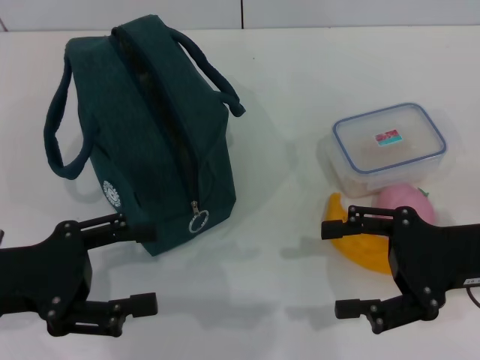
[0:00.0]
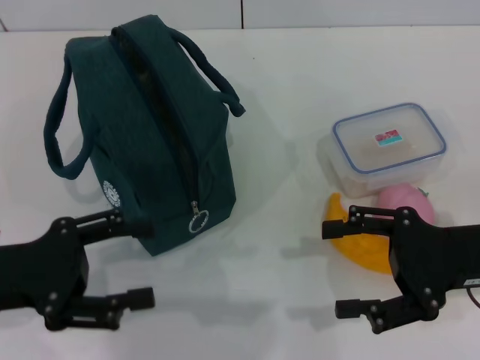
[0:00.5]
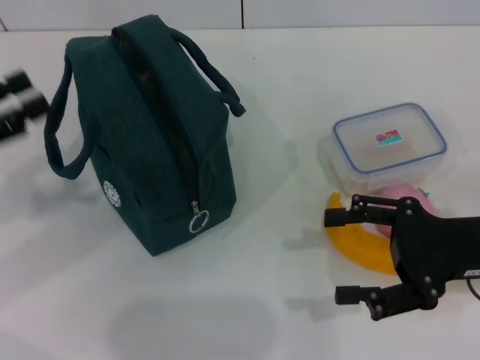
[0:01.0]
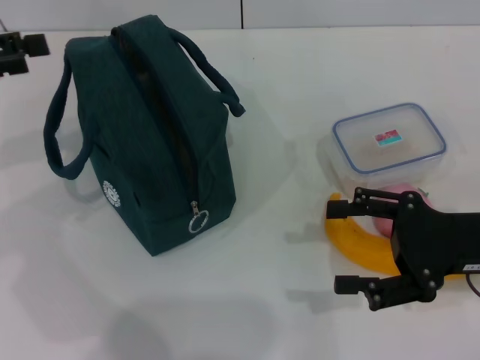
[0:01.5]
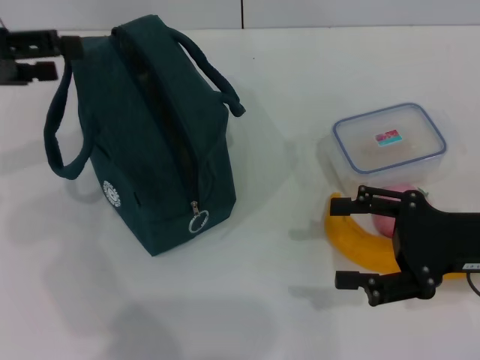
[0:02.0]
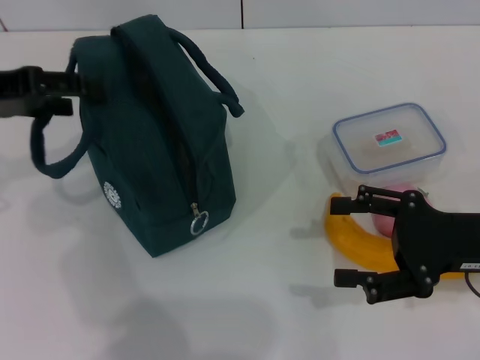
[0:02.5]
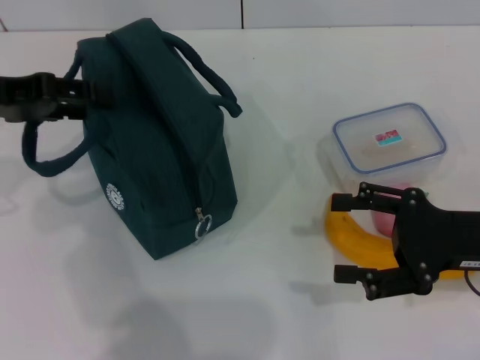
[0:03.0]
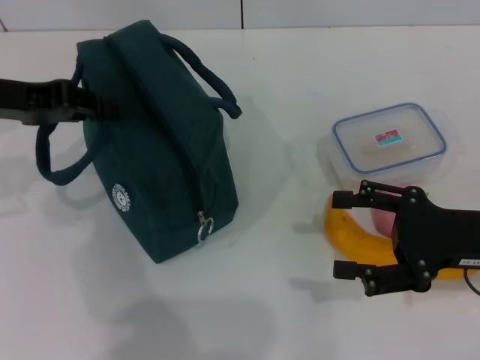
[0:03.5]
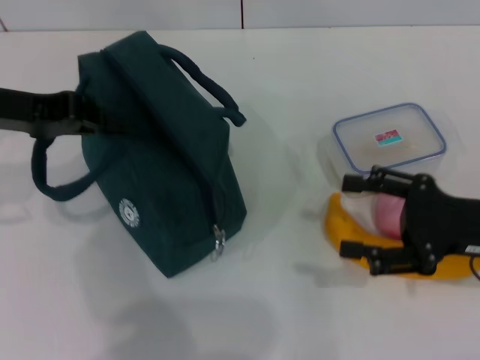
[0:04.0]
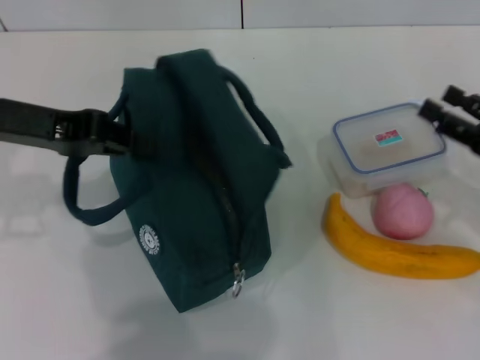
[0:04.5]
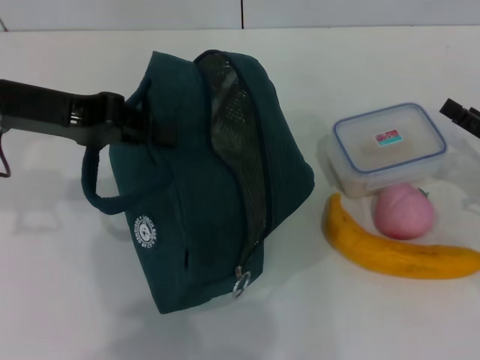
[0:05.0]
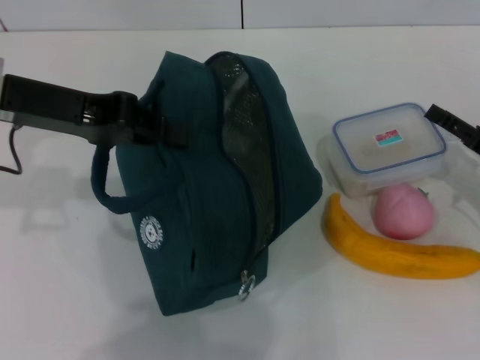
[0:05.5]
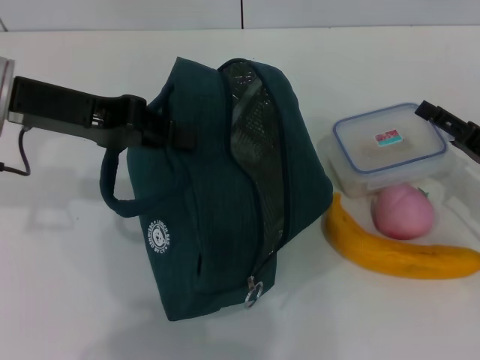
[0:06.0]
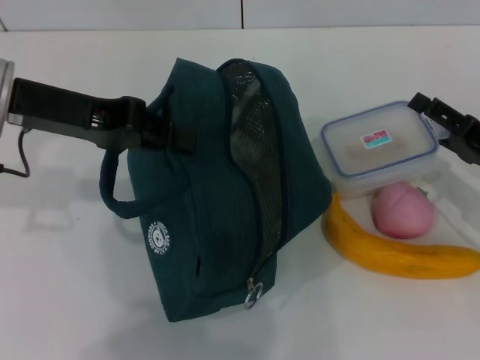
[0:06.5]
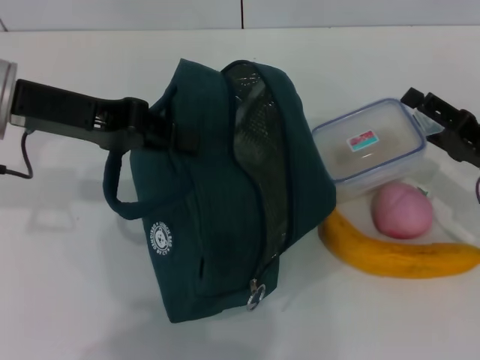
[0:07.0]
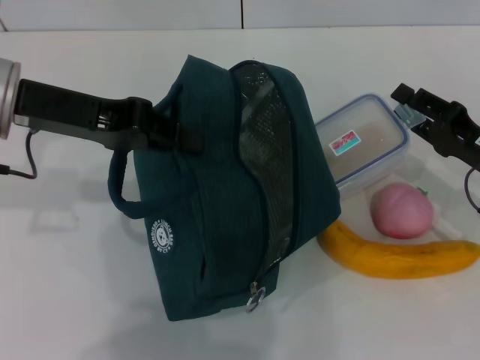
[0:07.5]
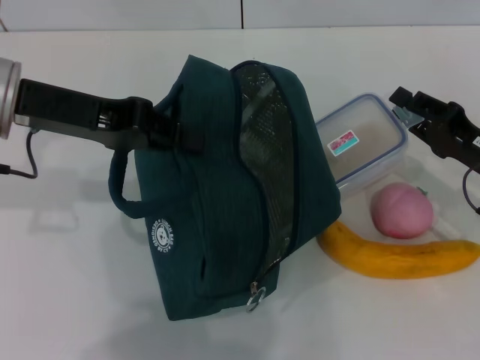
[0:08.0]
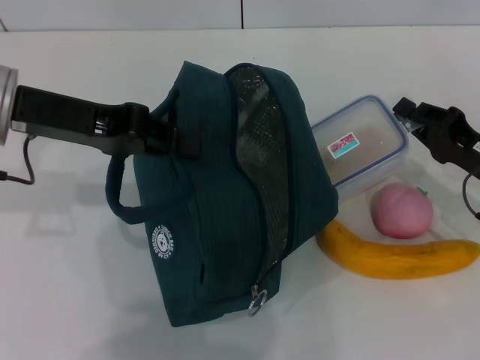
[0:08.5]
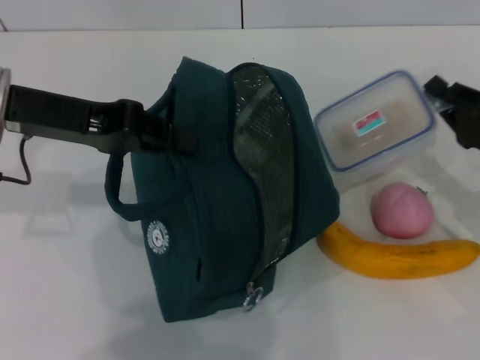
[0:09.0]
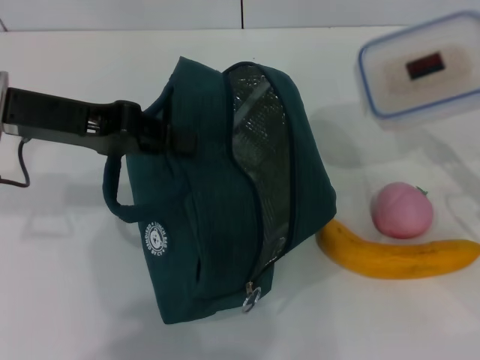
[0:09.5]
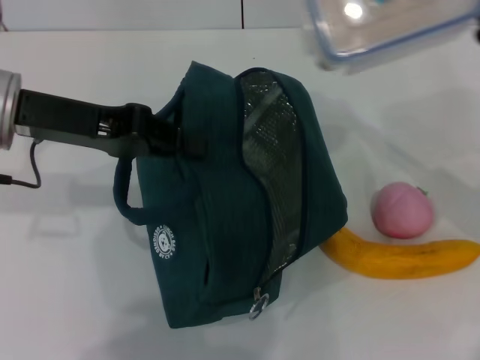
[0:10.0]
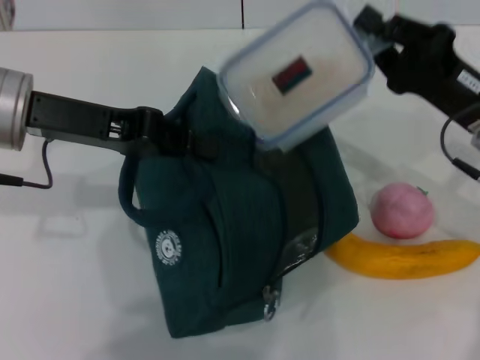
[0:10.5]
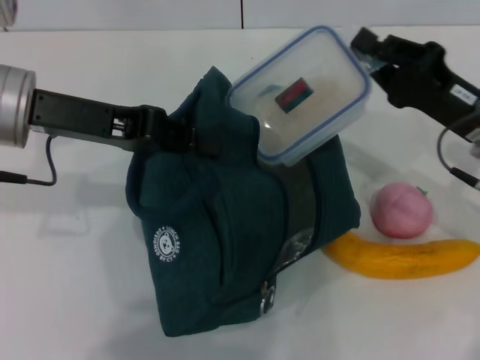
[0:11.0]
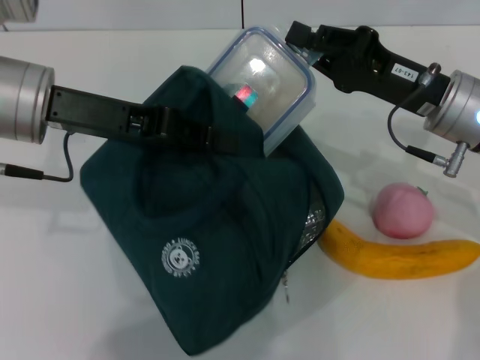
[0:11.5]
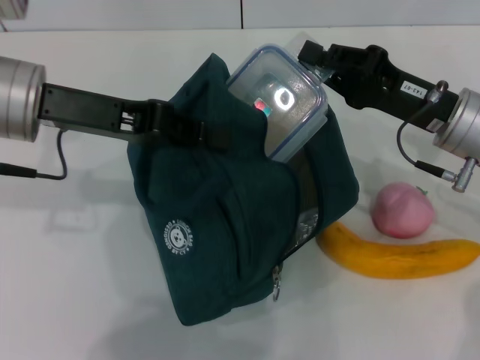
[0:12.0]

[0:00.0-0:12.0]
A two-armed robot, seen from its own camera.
Step, 0:00.0 to 0:03.5: Hold the lunch bag with your left hand.
Step, 0:04.0 to 0:08.5: Pick up the lunch box with your right hand.
0:00.0 to 0:02.0: The left gripper shifts some 15 cm upward and forward.
0:02.0 to 0:04.0: The left gripper ends up roughly 5 cm from where it was, and closes its fingers.
0:04.0 to 0:06.0: The left gripper moves some 5 cm. Meanwhile the right gripper travels downward by roughly 5 cm.
0:06.0 to 0:08.0: The right gripper closes.
0:08.0 to 0:10.0: The right gripper heads upward, covering about 10 cm, and closes its fingers.
0:10.0 to 0:12.0: The right gripper is displaced to the left by approximately 5 cm.

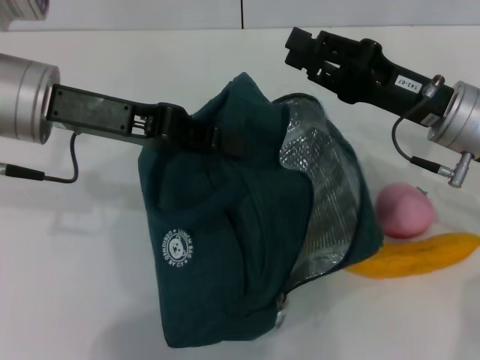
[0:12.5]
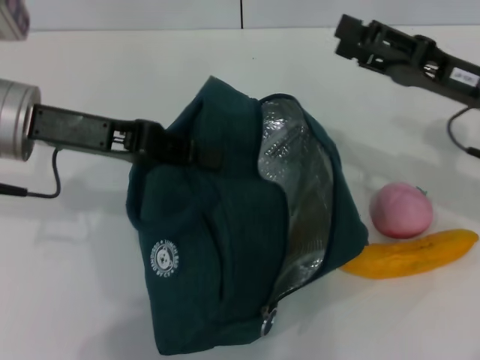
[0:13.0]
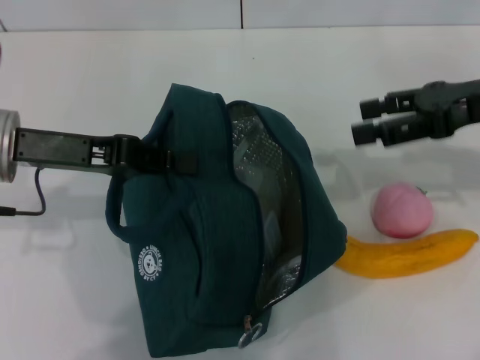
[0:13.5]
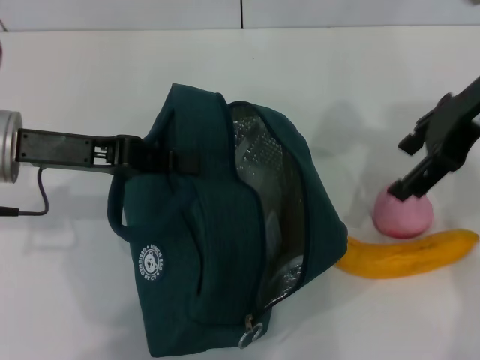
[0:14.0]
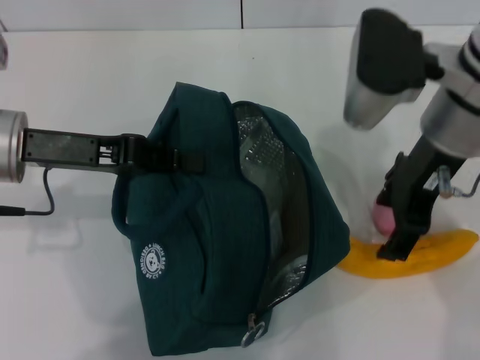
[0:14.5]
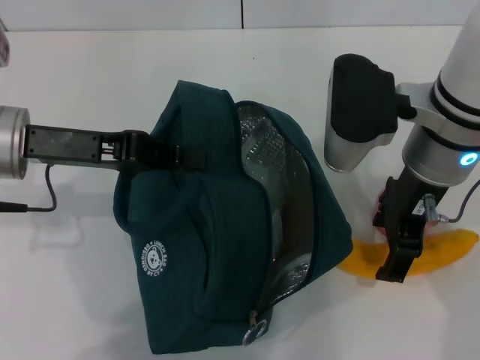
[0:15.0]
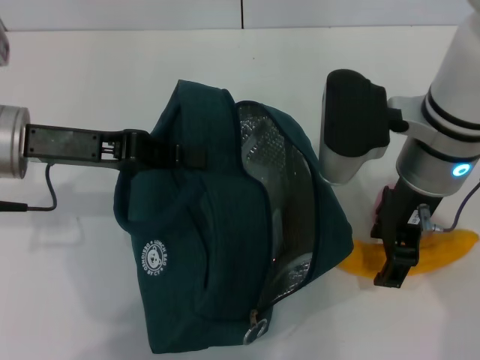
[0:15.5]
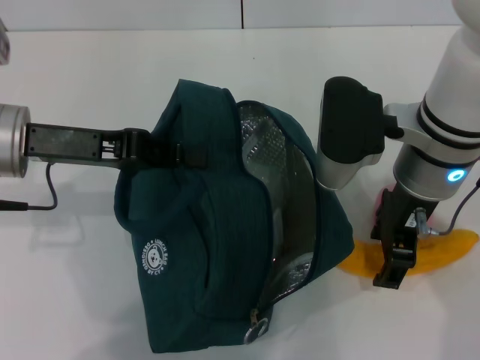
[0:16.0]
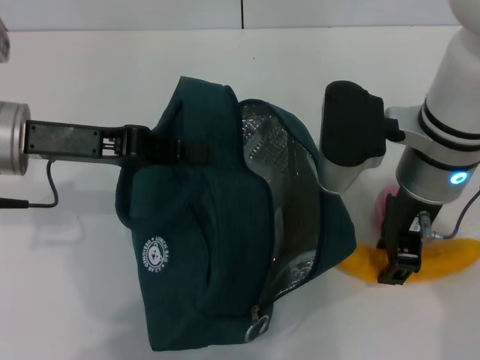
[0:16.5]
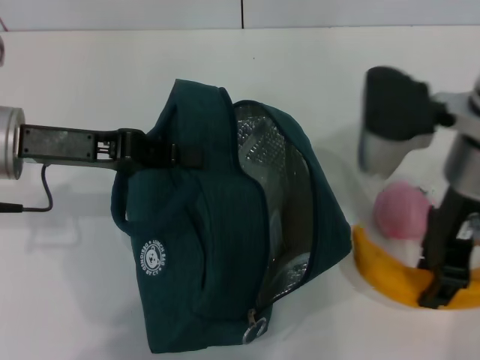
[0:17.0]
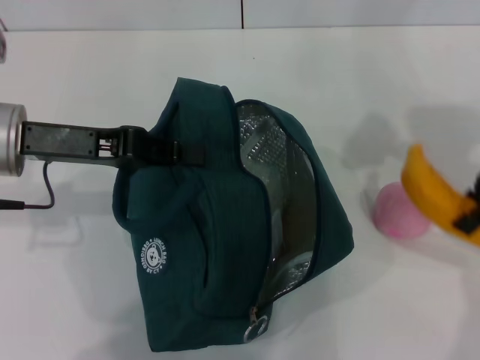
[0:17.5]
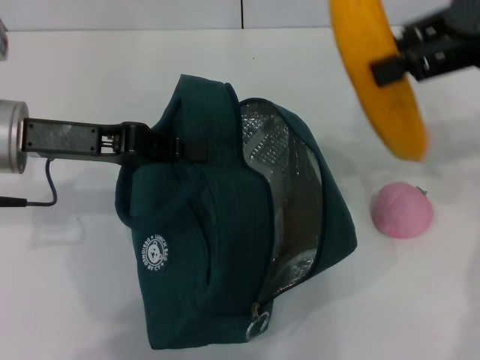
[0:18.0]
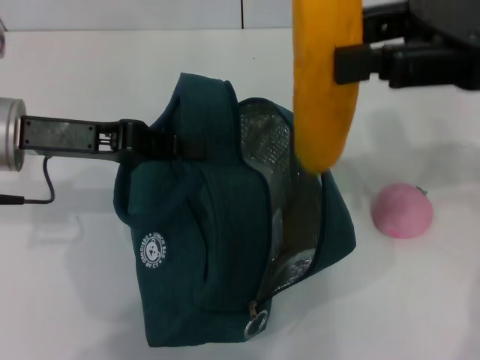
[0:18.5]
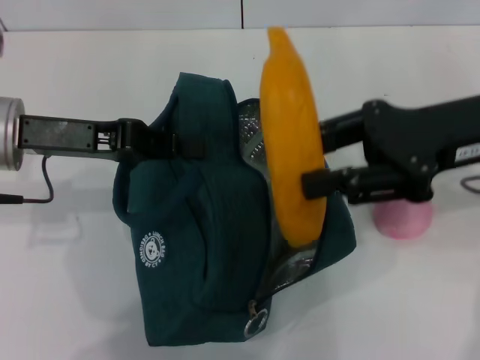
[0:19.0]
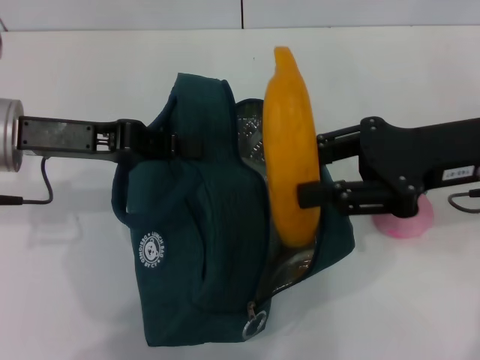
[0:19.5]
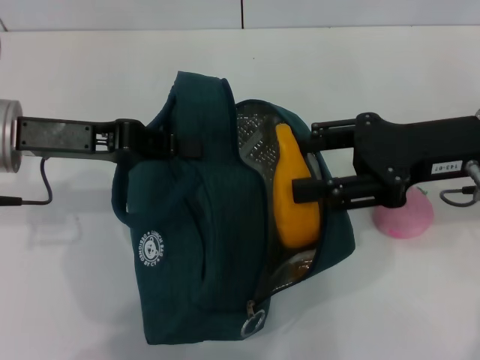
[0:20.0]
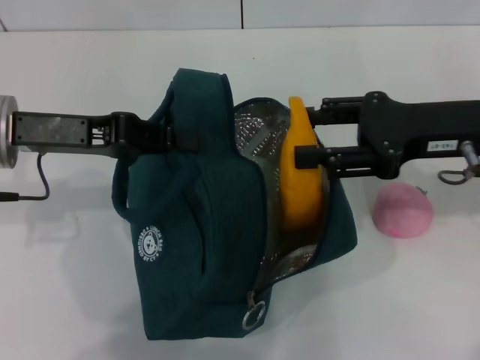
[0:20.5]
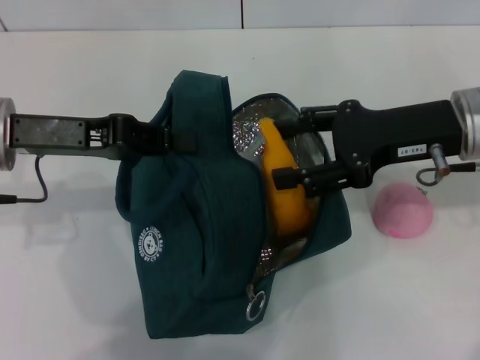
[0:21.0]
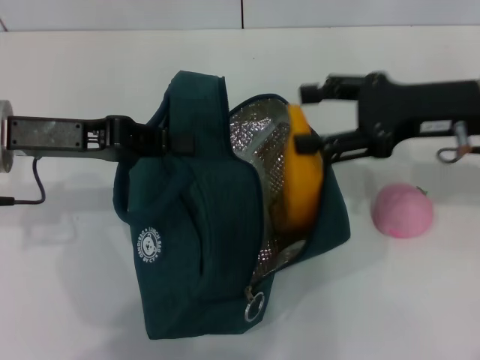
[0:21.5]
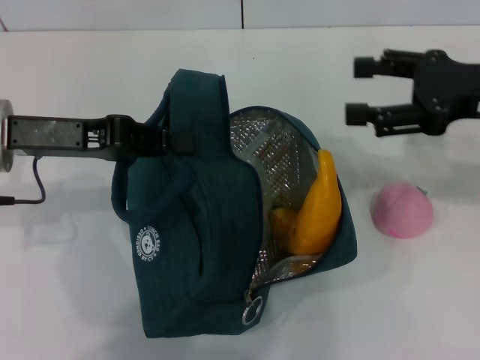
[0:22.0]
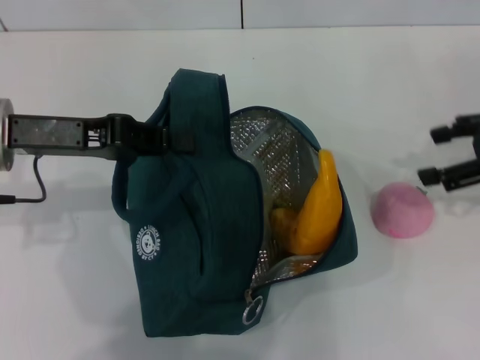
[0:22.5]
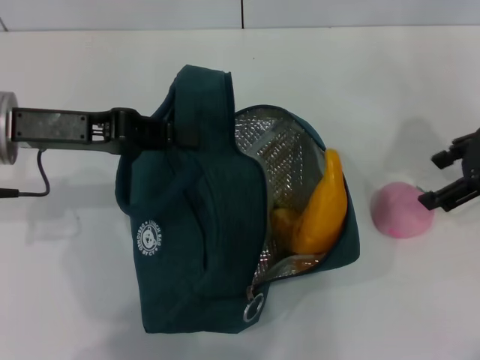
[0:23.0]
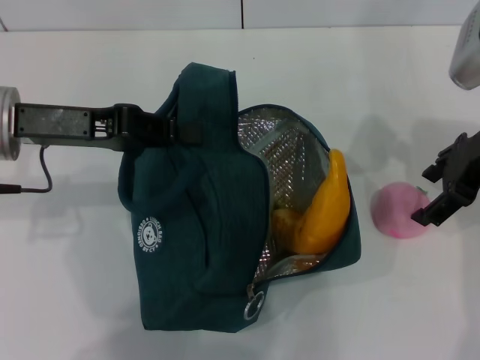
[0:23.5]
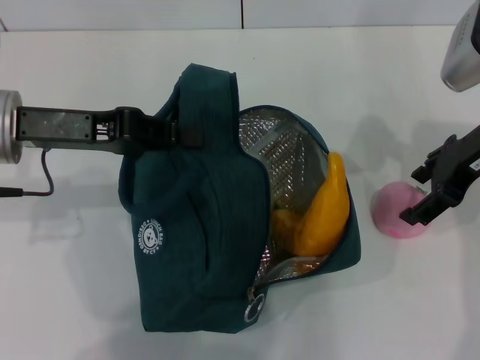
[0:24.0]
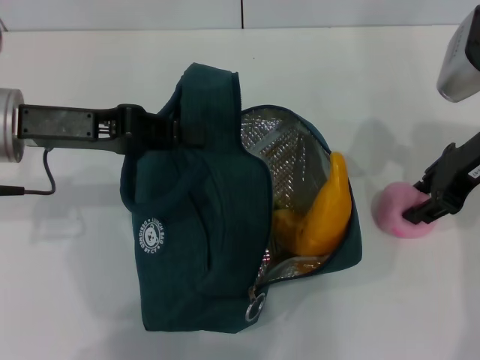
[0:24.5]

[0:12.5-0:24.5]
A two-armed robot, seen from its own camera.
Step, 0:12.5 to 0:16.5: Take the banana with your right hand.
Step, 0:17.0 to 0:21.5: Put the banana into the lunch bag with your right hand.
0:12.5 to 0:14.5: The right gripper travels upward and to the left by roughly 10 cm, and opens up, while the left gripper shifts by approximately 5 cm.
0:14.5 to 0:16.5: The right gripper moves some 5 cm.
0:16.5 to 0:18.5: The right gripper moves to the right and upward, about 15 cm.
0:18.5 to 0:20.5: The right gripper goes some 10 cm downward.
0:20.5 to 0:22.5: The right gripper heads to the right, covering some 10 cm.
0:22.5 to 0:24.5: The right gripper is displaced to the left by some 10 cm.

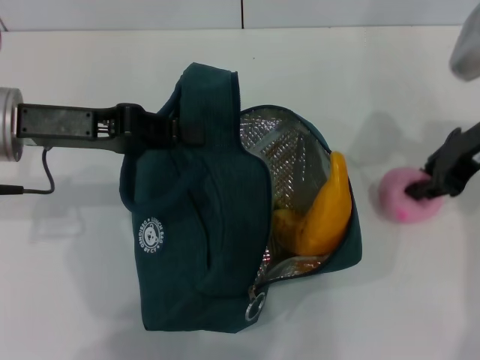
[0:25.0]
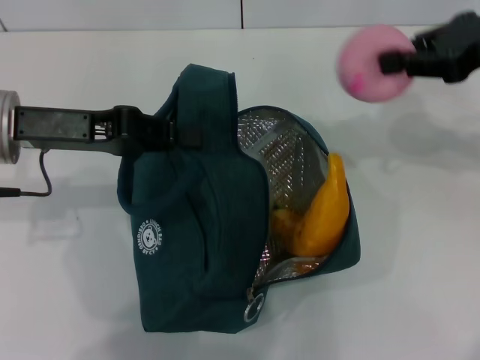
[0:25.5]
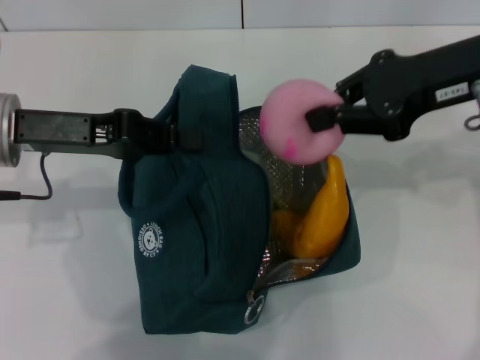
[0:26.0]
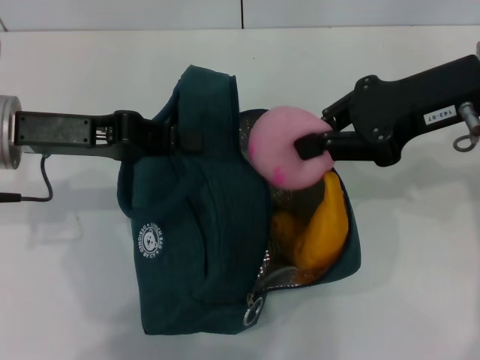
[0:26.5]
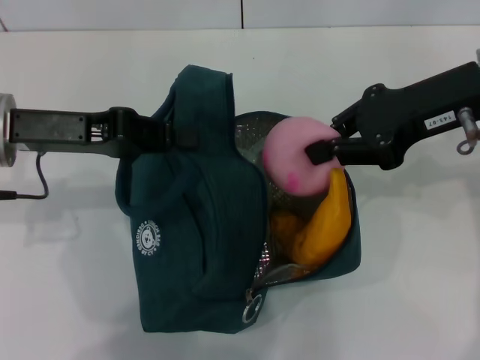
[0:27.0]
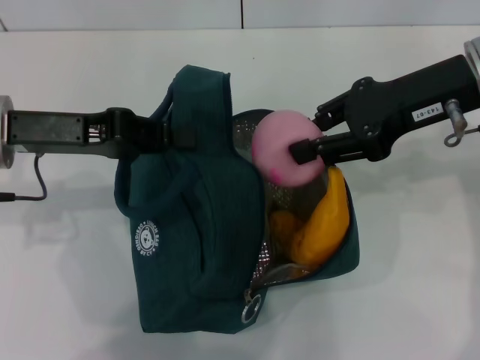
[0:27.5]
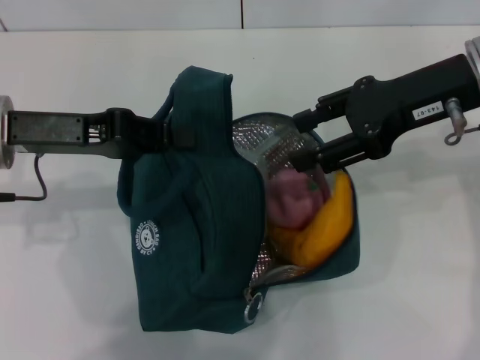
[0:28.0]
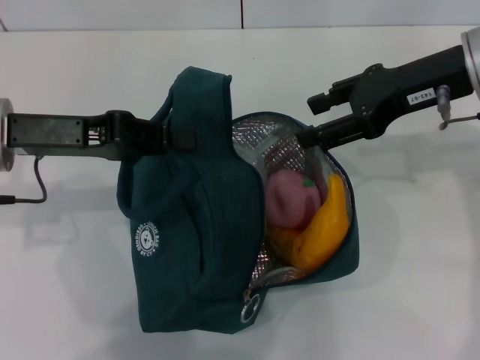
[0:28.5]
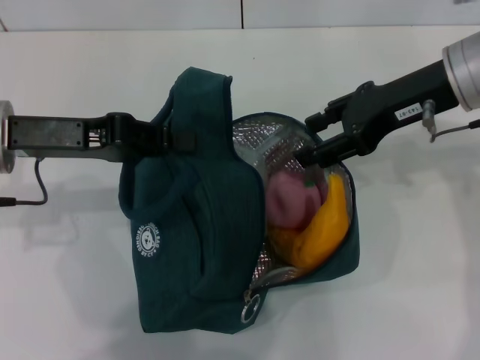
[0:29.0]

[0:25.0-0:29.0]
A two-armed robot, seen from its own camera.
0:25.0 to 0:27.0: The right gripper moves approximately 5 cm.
0:27.0 to 0:29.0: The right gripper opens.
